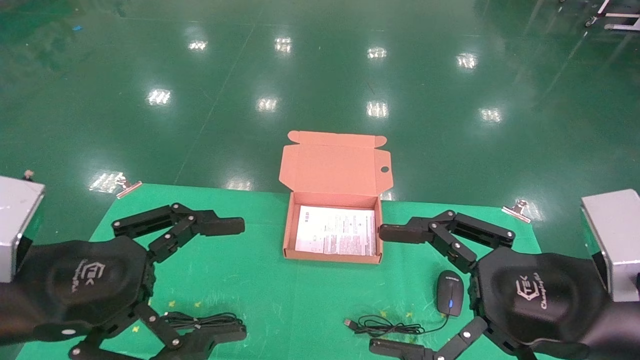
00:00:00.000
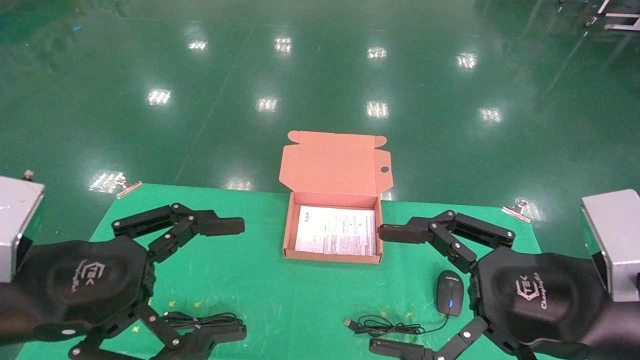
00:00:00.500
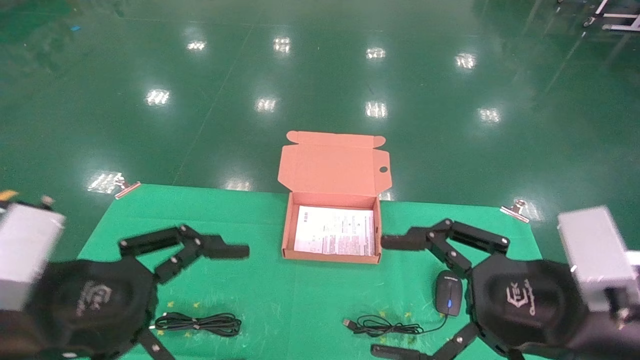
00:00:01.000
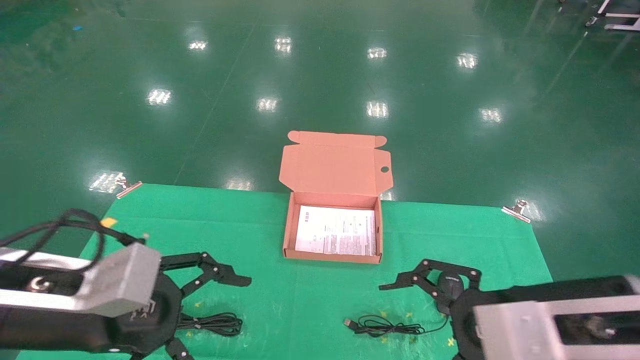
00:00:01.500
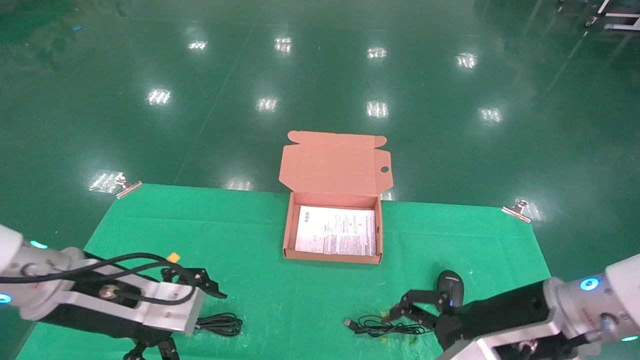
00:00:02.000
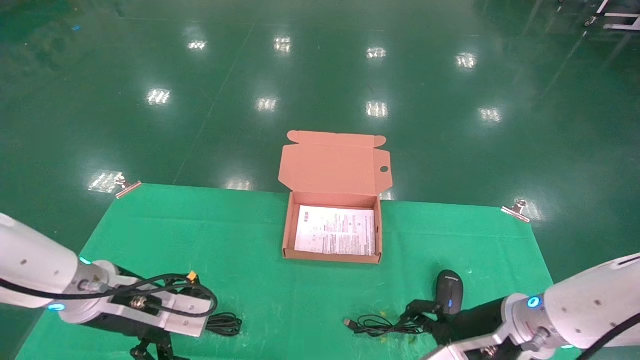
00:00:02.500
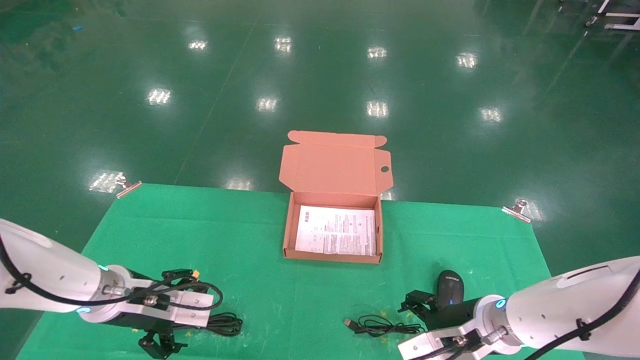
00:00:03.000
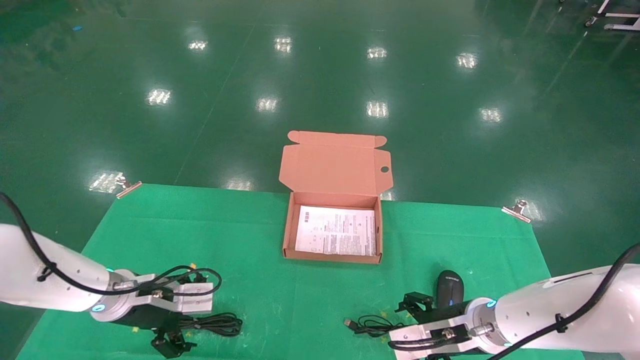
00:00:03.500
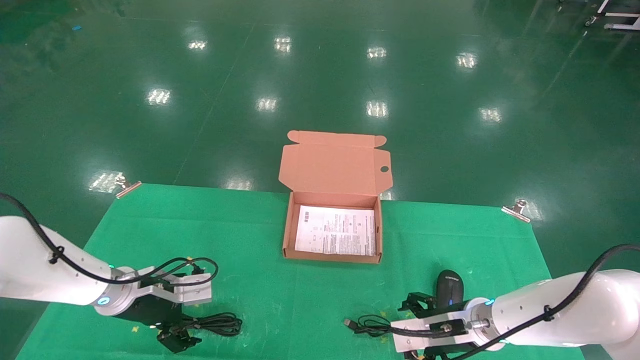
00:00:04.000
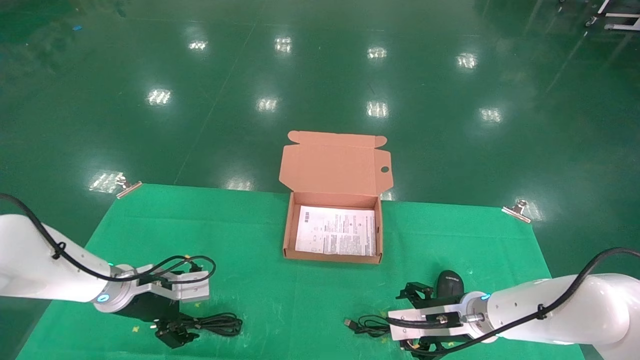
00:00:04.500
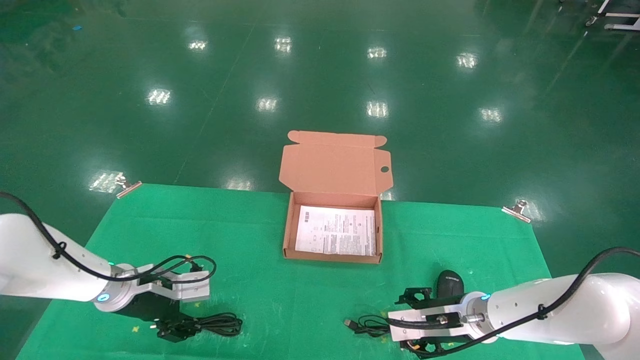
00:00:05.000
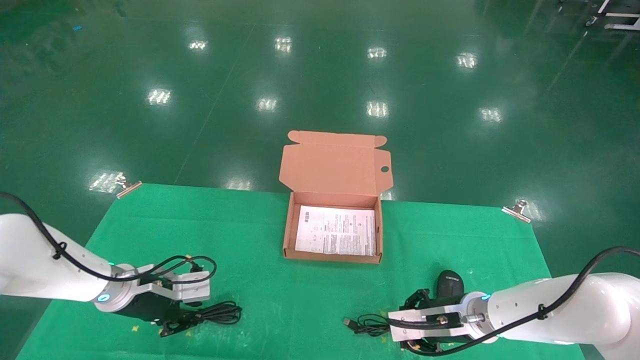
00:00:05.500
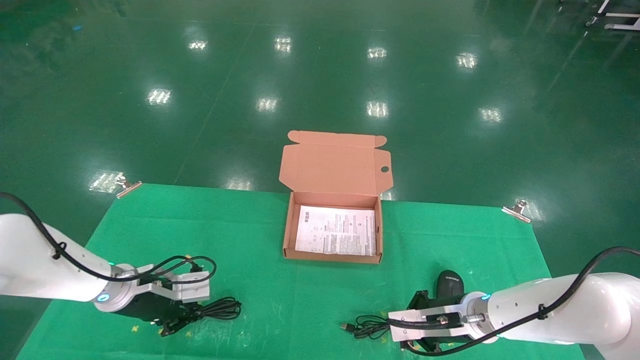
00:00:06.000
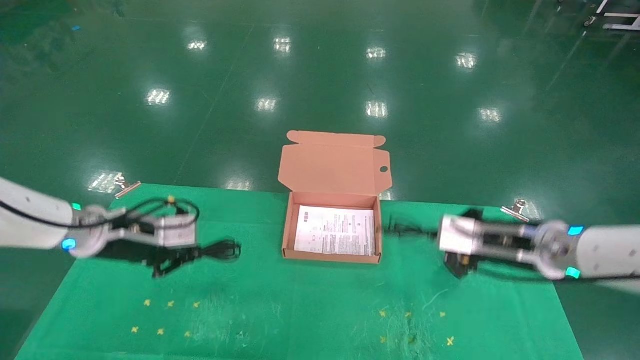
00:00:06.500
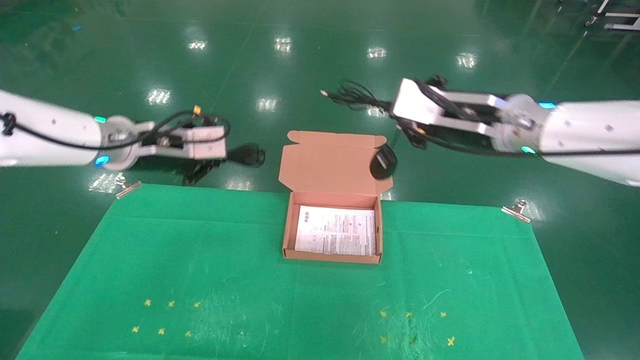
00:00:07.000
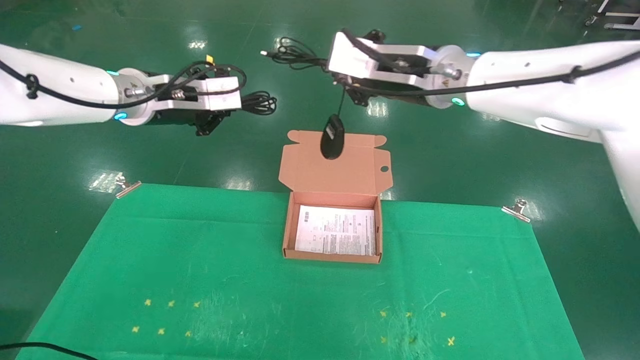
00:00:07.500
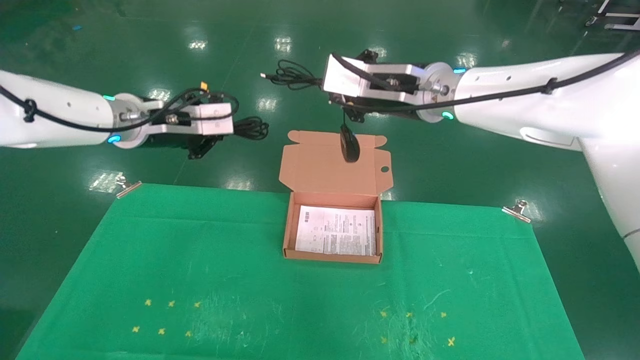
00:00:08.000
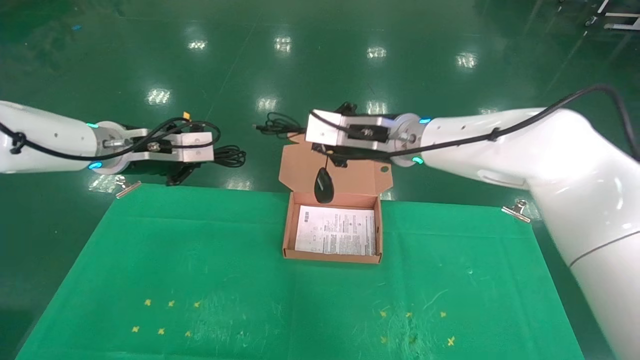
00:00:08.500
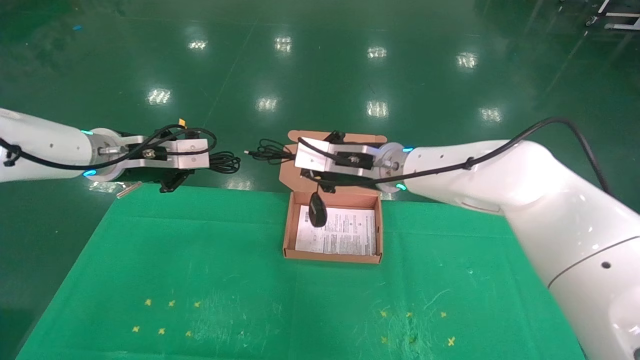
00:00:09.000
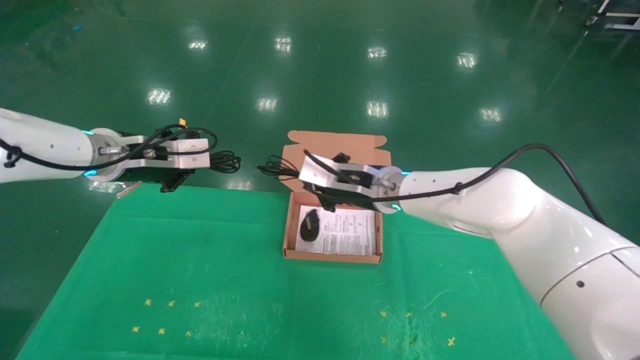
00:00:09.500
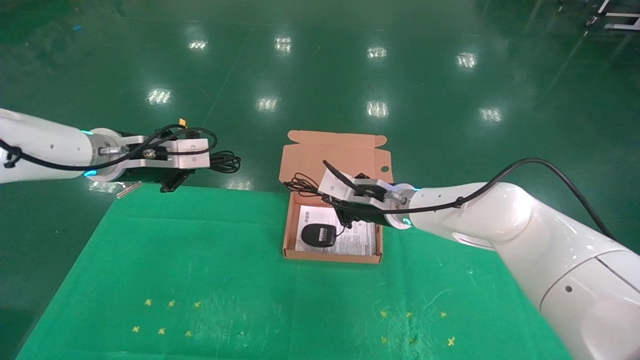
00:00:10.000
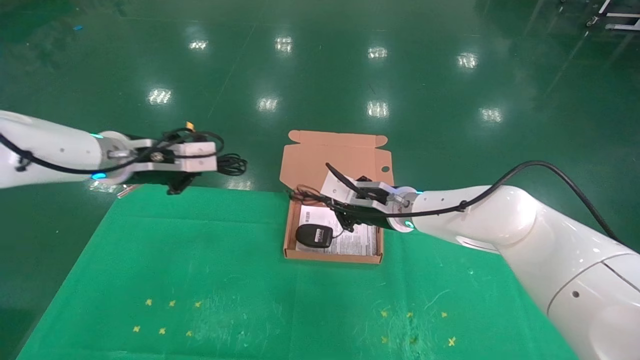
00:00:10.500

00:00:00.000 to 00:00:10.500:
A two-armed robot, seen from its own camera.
Task of the whole recording: grasp data cable left put into box grasp mouse right put into box.
Step, 00:00:01.000 to 00:00:05.500: Grab and pick up both the mouse and power cord from the accessory packaging area at the same time.
00:00:00.000 to 00:00:02.000: The left gripper shifts about 10 cm forward. The right gripper goes approximately 10 cm forward and downward.
00:00:02.000 to 00:00:04.000: Both grippers travel together forward and downward, approximately 15 cm.
00:00:04.000 to 00:00:06.500: Both grippers travel together upward, about 10 cm. The left gripper closes. Meanwhile the right gripper closes up.
00:00:06.500 to 00:00:08.500: The right gripper travels to the left and upward by approximately 20 cm, while the left gripper moves upward, roughly 10 cm.
00:00:08.500 to 00:00:10.500: The right gripper is displaced downward by approximately 10 cm.

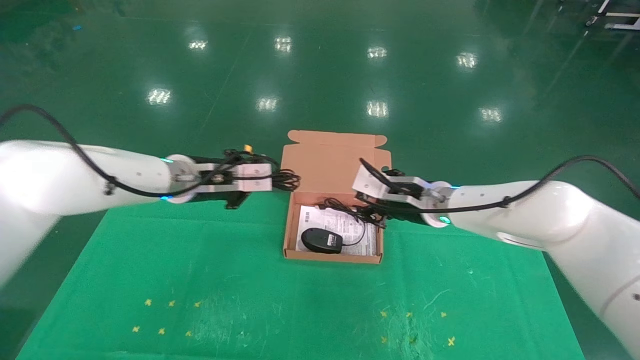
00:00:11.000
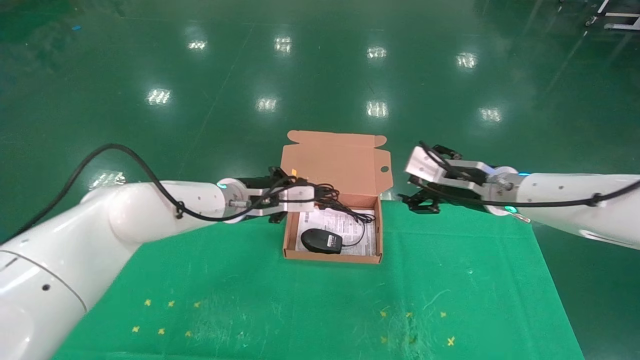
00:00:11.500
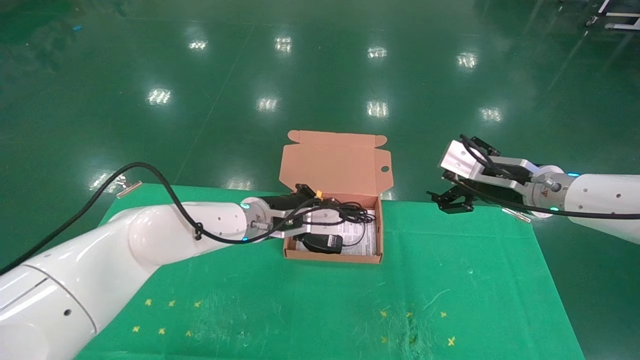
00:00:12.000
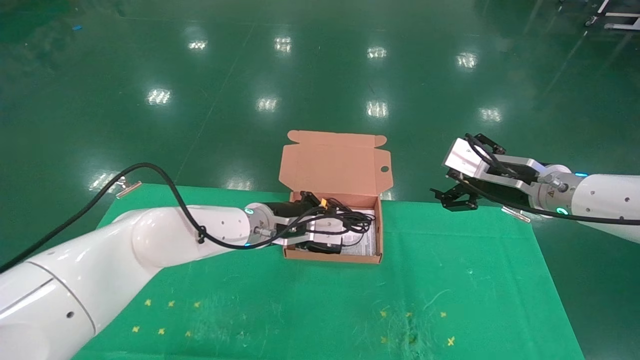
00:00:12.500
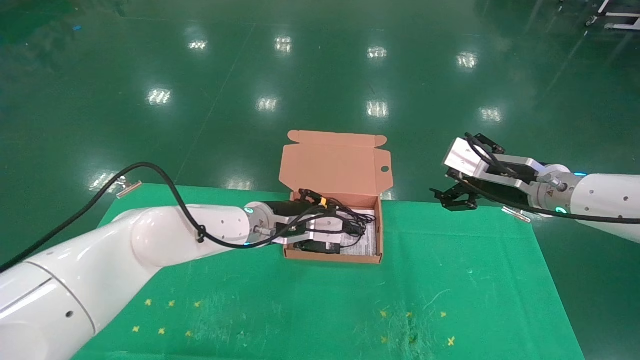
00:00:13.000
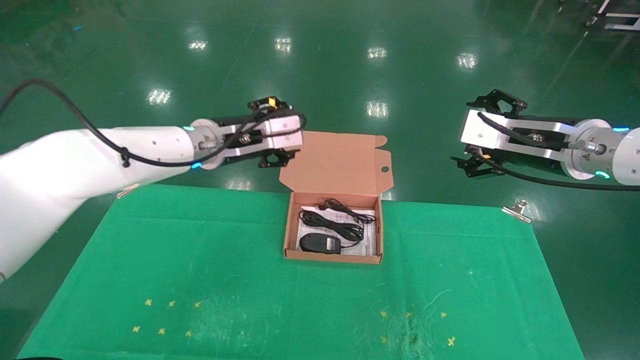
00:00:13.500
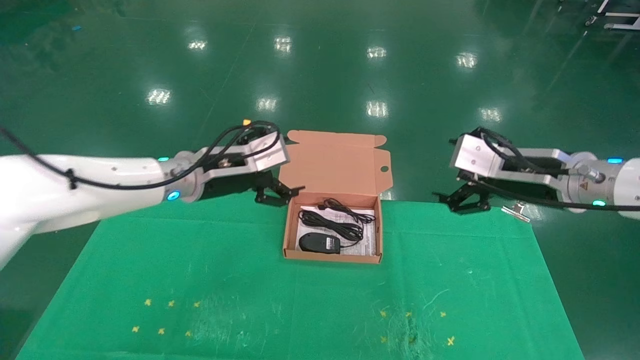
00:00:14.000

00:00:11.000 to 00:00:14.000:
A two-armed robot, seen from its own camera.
Task of the whole recording: grasp data cable left put into box grasp mouse right put into box.
00:00:11.000 to 00:00:12.500: The left gripper moves to the right and downward, some 15 cm, while the right gripper shifts approximately 15 cm to the right and backward, and opens up.
00:00:12.500 to 00:00:14.000: The right gripper ends up about 5 cm from where it was; the left gripper goes some 15 cm to the left and upward, and opens up.
